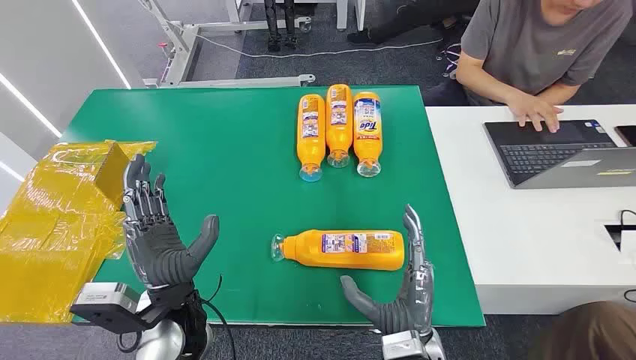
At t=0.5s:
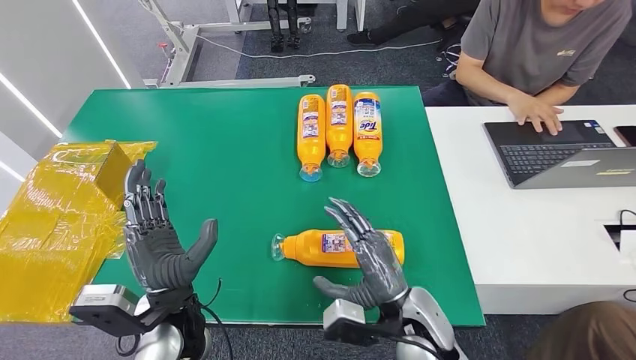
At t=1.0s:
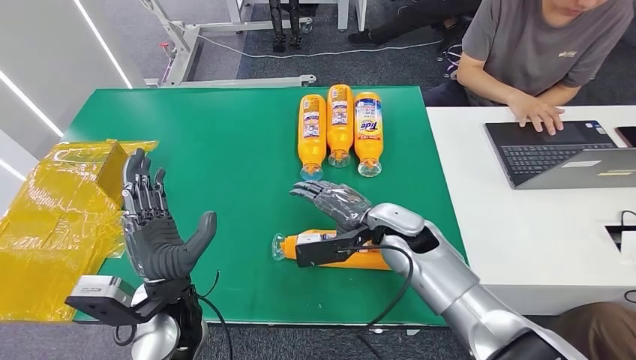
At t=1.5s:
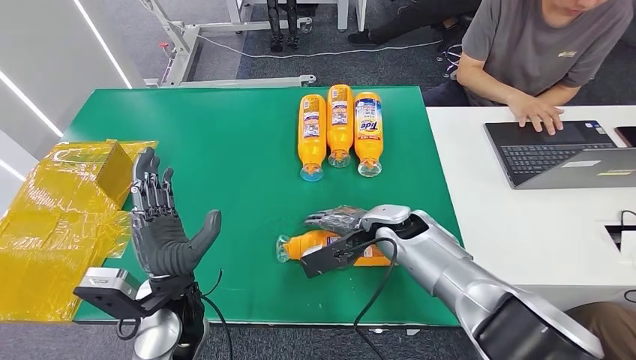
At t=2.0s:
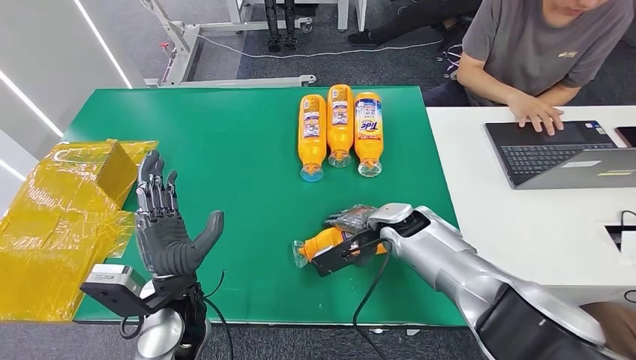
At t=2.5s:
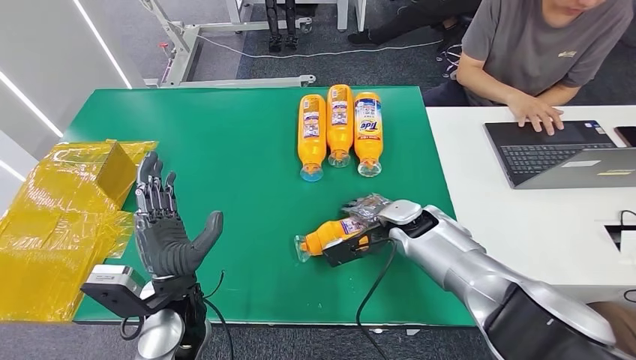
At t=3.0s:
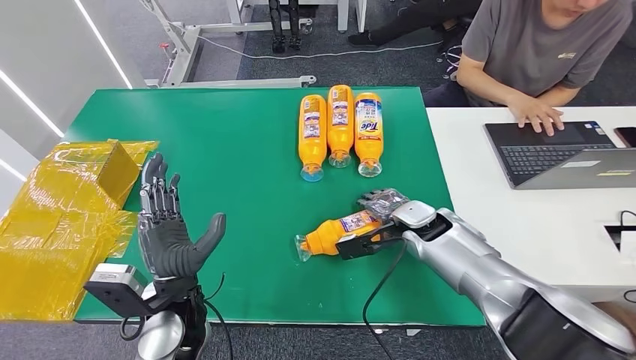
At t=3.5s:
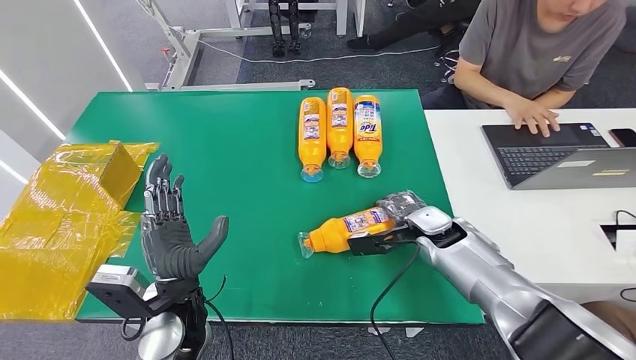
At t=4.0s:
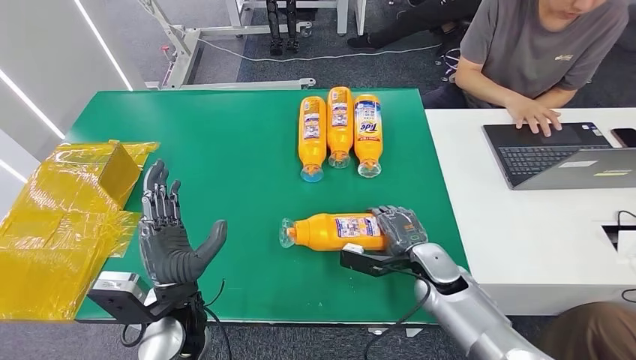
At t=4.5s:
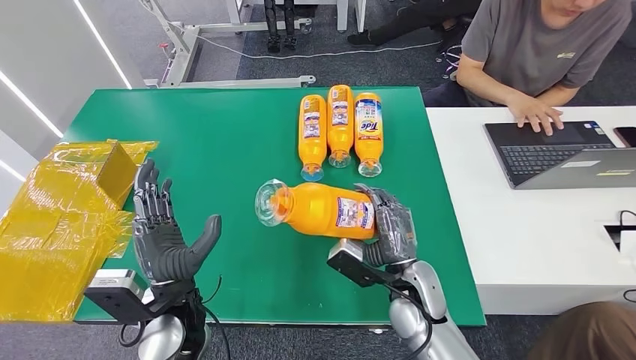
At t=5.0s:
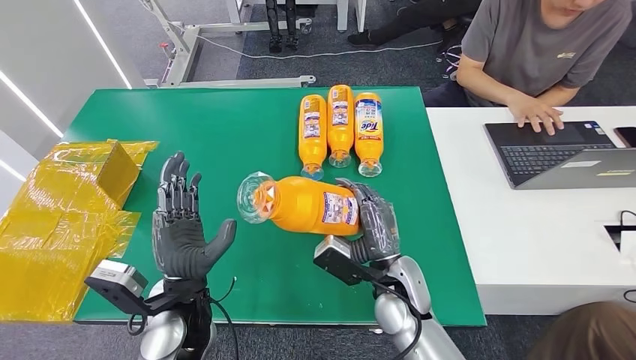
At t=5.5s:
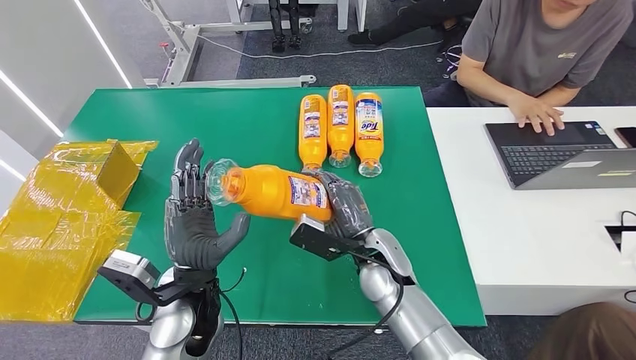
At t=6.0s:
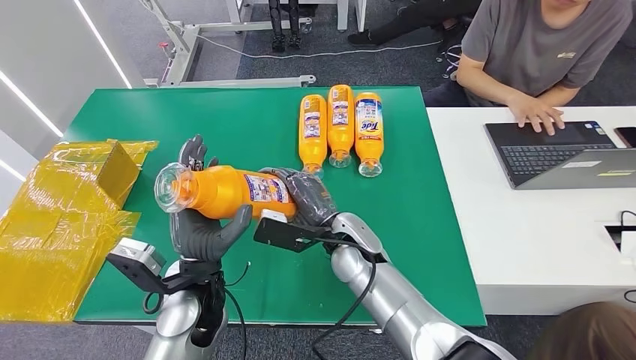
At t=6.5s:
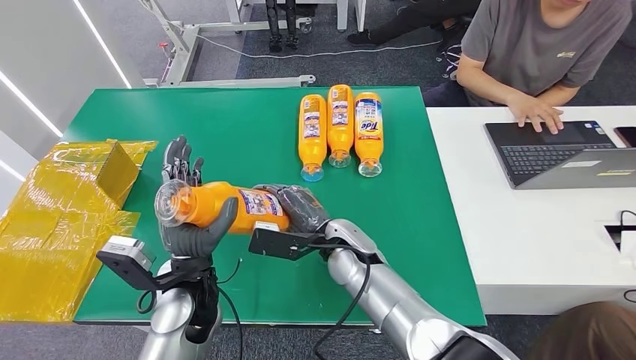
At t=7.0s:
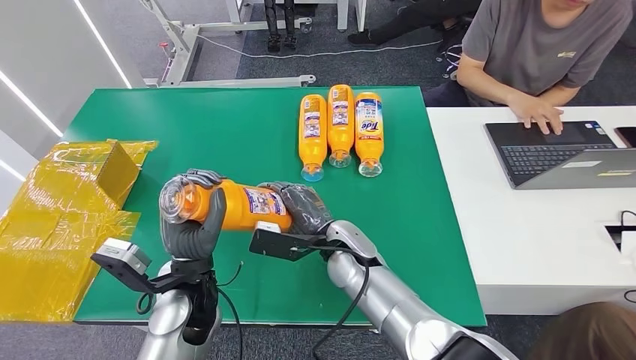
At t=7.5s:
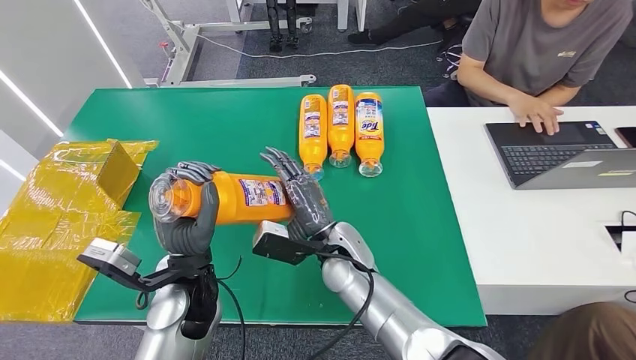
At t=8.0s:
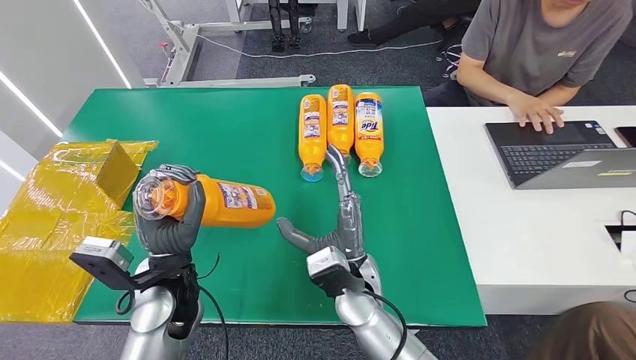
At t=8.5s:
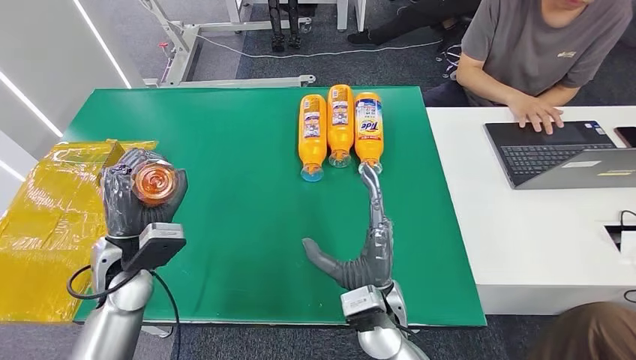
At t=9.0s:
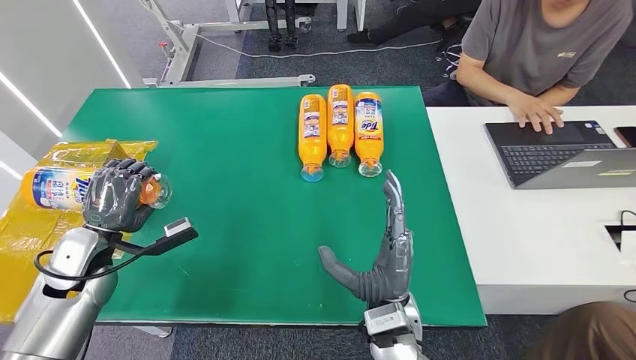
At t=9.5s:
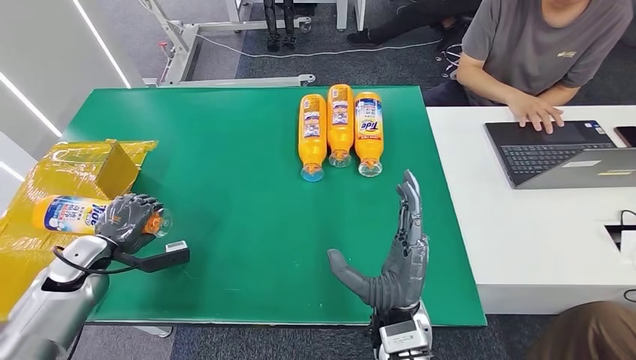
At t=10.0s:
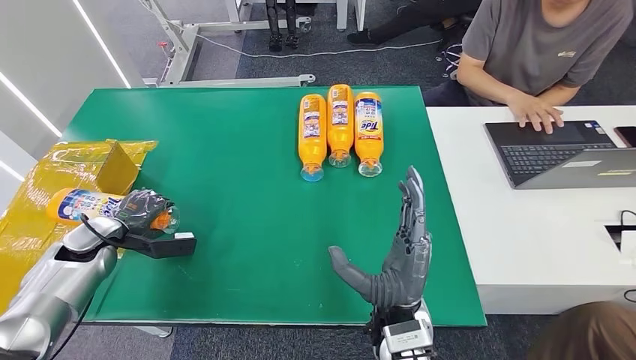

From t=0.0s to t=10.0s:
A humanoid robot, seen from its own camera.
Step, from t=0.0s to t=6.5s: Pick up the bottle from the table.
From t=2.0s to t=4.0s: The right hand travels backward, downward and to the right by some 10 cm.
From t=6.0s to t=8.0s: The right hand shifts roughly 5 cm backward.
From t=8.0s to t=10.0s: The right hand heads backward, covering some 5 cm. The left hand heads to the left and forward, covering approximately 25 cm.

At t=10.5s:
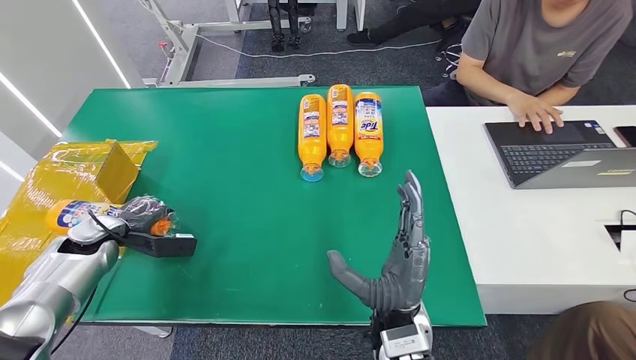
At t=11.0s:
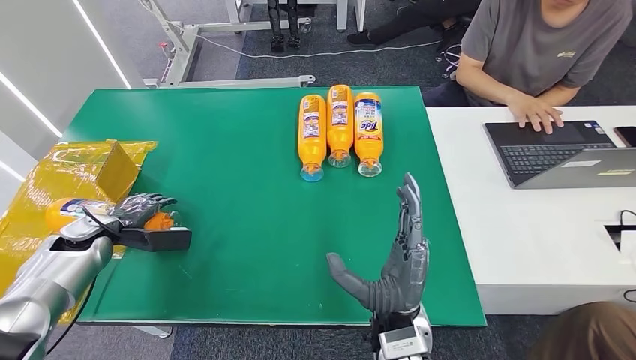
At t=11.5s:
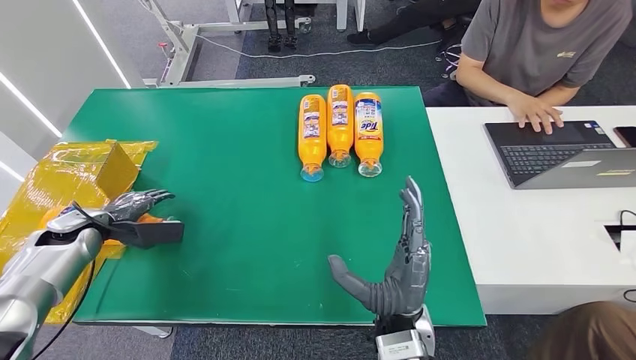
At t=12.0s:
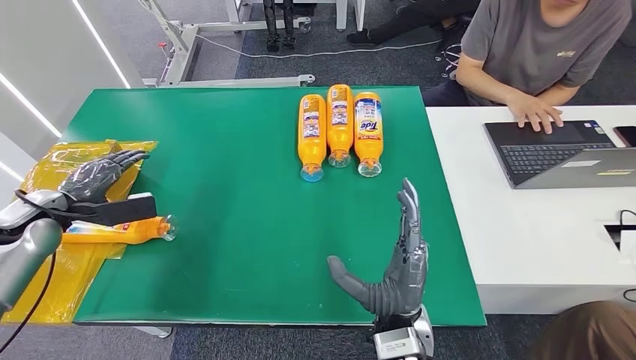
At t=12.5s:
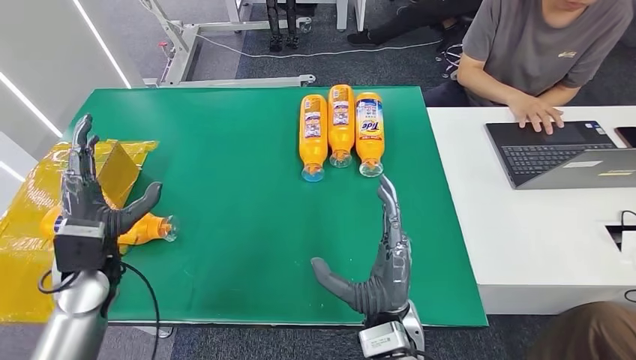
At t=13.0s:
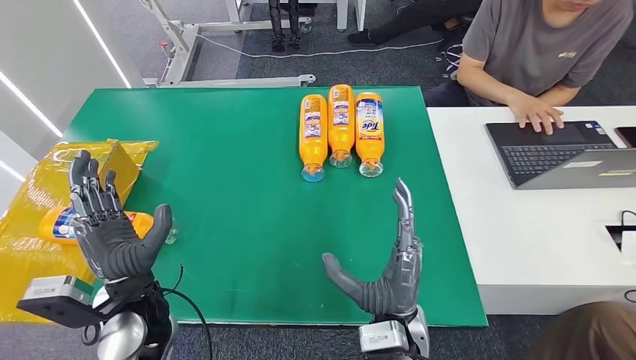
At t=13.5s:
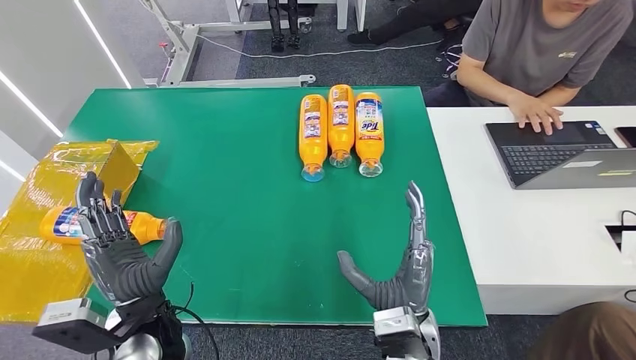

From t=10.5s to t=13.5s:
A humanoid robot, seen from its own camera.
Step, from t=10.5s to t=13.5s: Turn the bottle to the front side.
From t=10.5s to t=12.0s: The left hand heads upward, covering roughly 10 cm.
From t=12.0s to t=13.5s: The left hand goes some 30 cm to the right and backward.
